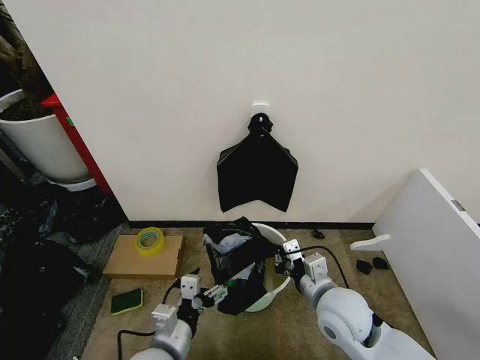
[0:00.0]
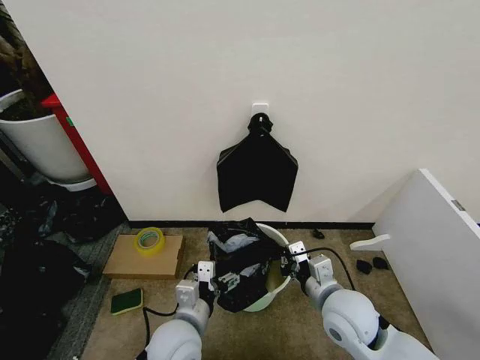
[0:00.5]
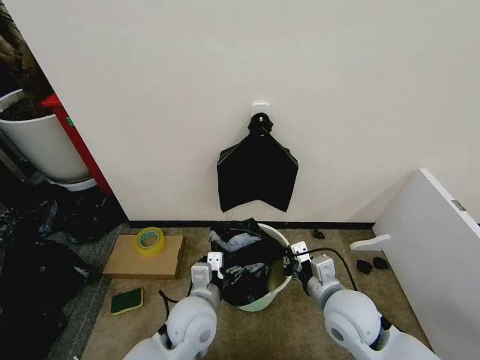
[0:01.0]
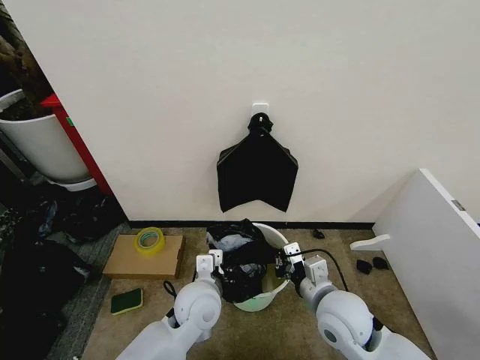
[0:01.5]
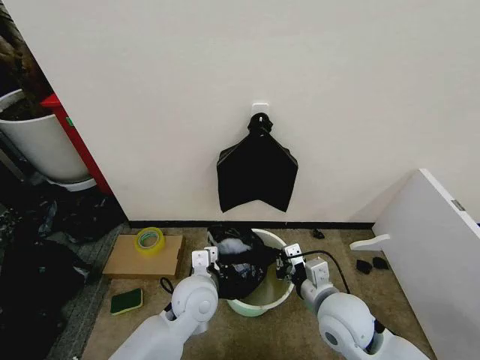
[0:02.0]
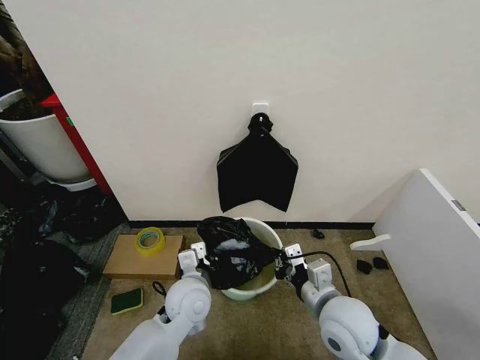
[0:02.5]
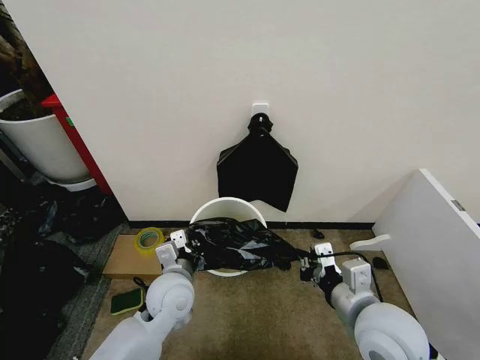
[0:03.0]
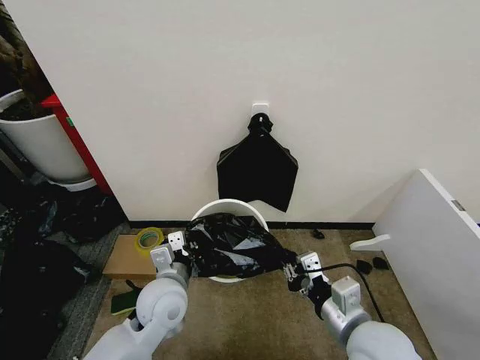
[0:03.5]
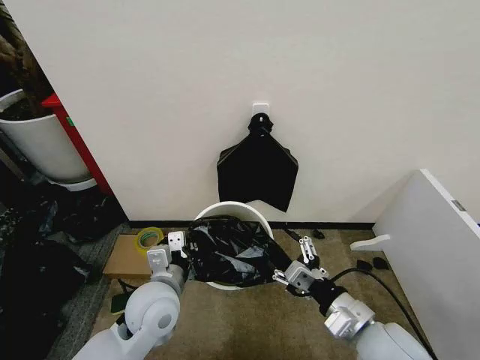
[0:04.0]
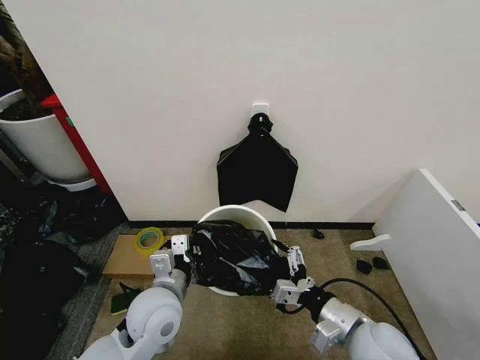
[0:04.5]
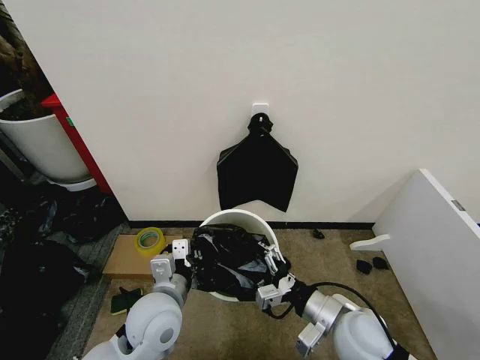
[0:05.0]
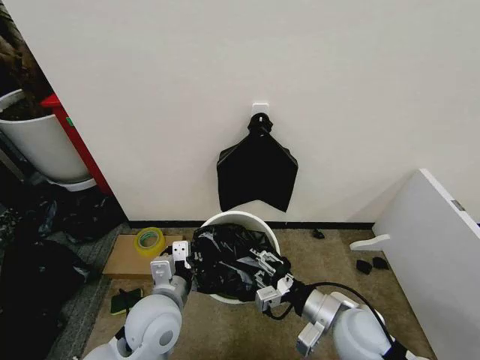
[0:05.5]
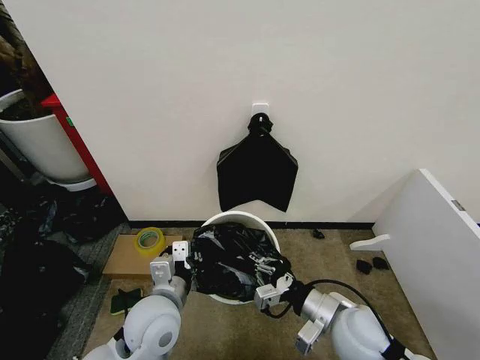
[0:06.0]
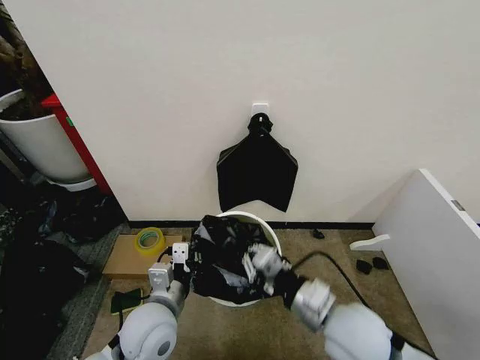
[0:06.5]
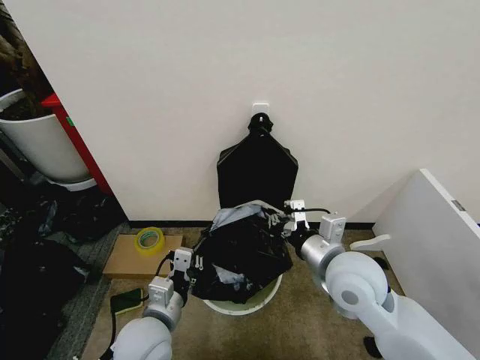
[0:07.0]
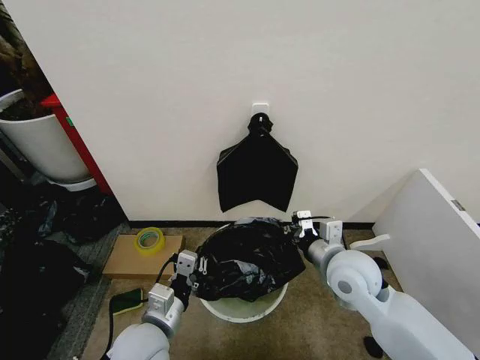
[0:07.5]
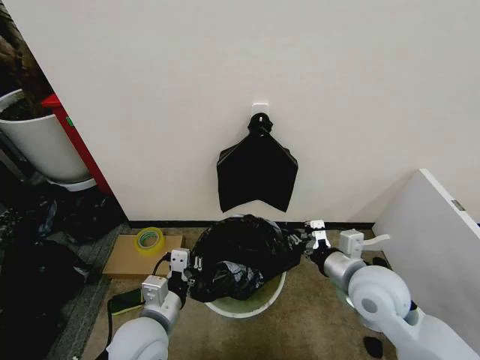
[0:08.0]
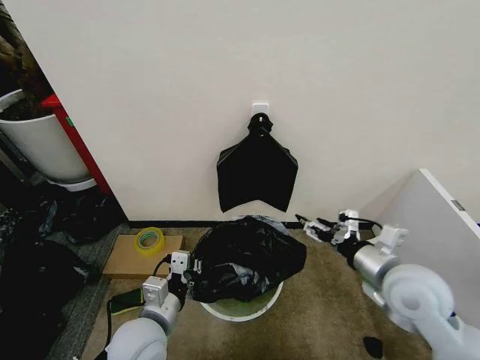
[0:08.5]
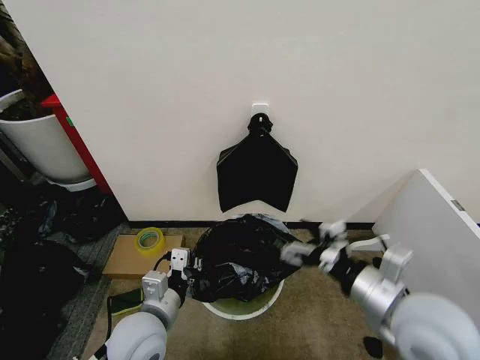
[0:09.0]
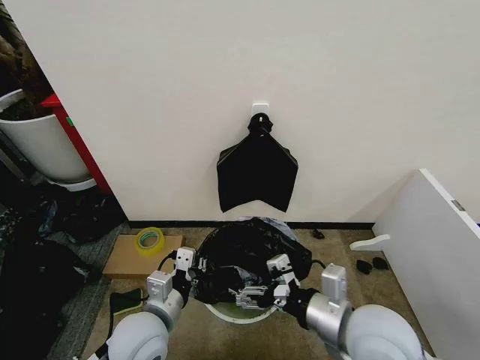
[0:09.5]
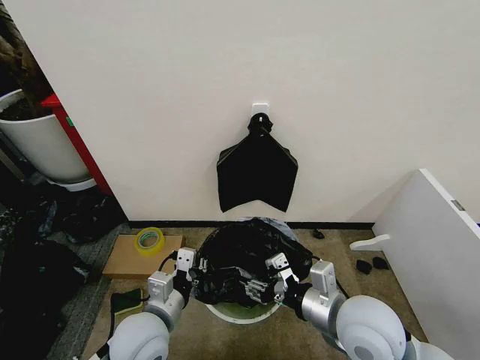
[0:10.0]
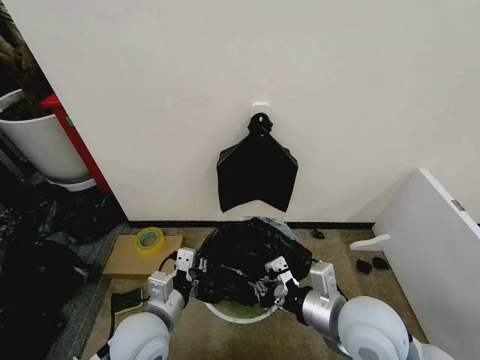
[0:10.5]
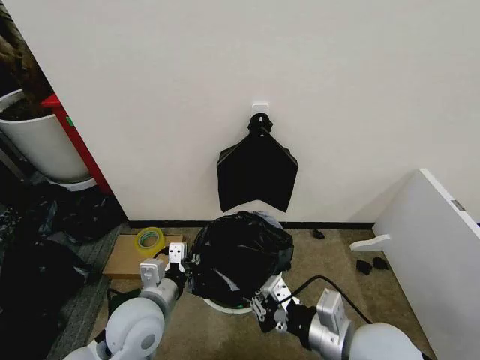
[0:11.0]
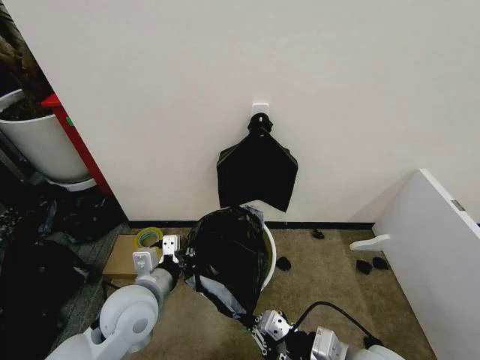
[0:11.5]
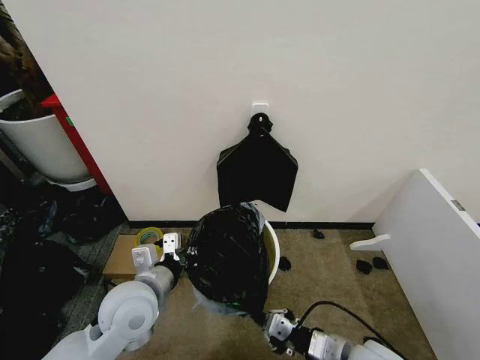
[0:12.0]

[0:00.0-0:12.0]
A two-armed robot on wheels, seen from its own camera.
Task of the whole recording: Place the garbage bag over the trash bin.
0:00.0 to 0:02.0: The left gripper moves forward and to the right, about 15 cm, and closes its fingers.
0:02.0 to 0:04.0: The right gripper is displaced backward by some 5 cm, and opens its fingers. The left gripper shifts roughly 5 cm to the left.
0:04.0 to 0:06.0: The right gripper shifts by some 5 cm, and closes its fingers.
0:06.0 to 0:08.0: The right gripper moves upward and forward, some 10 cm.
0:08.0 to 0:10.0: The right gripper moves backward, about 5 cm, and opens and closes again.
0:10.0 to 0:12.0: The right gripper is displaced downward and backward by approximately 10 cm, and closes up. The left gripper ends up approximately 5 cm from where it was.

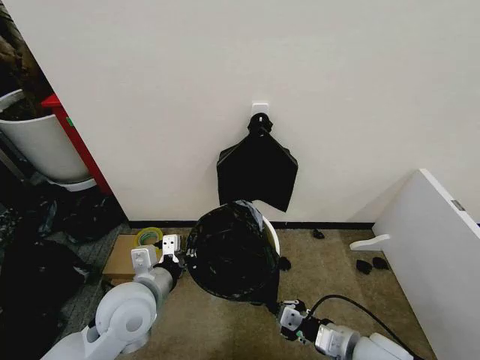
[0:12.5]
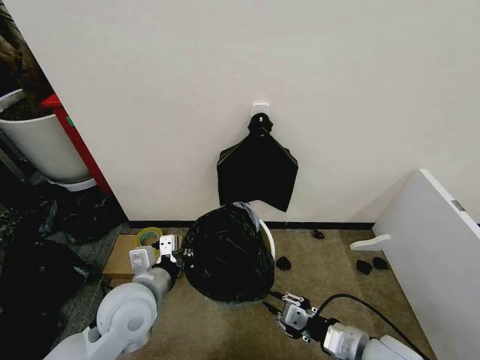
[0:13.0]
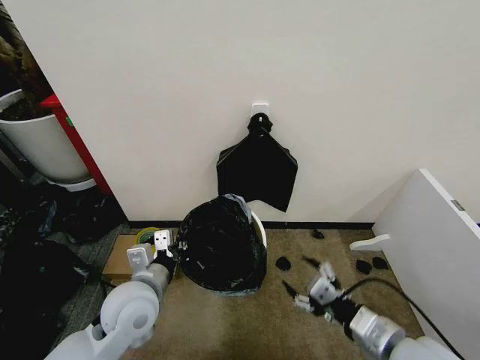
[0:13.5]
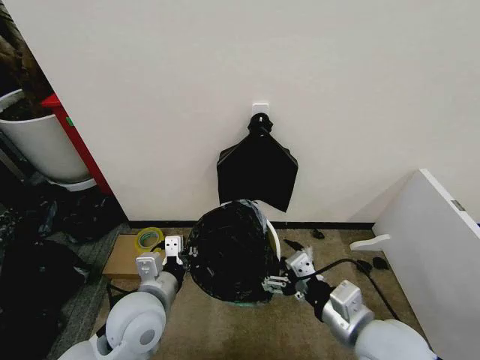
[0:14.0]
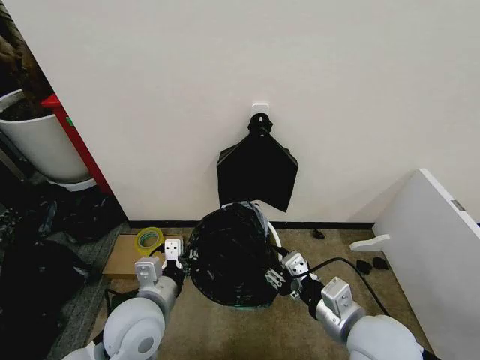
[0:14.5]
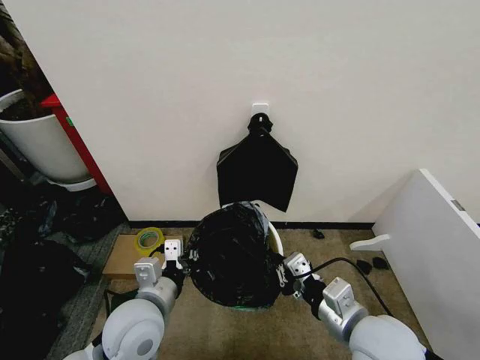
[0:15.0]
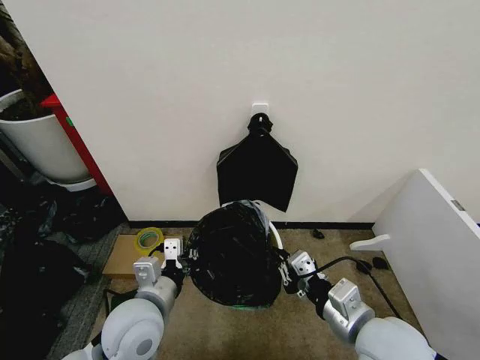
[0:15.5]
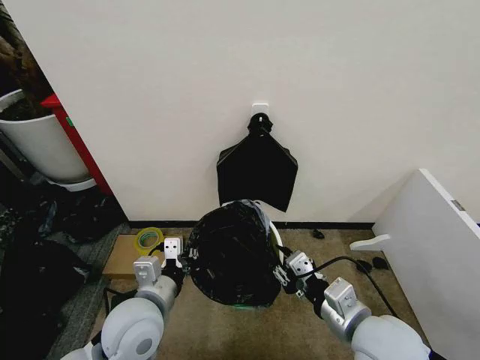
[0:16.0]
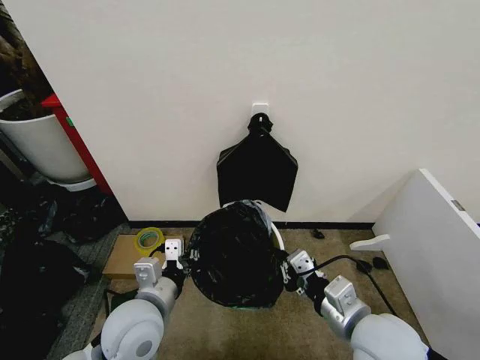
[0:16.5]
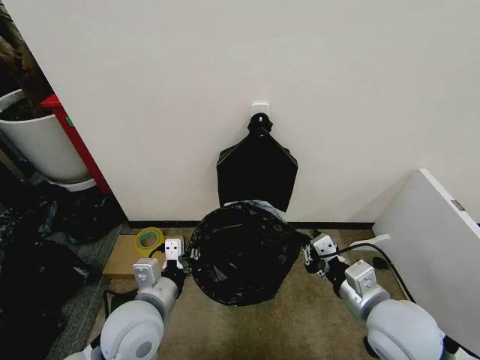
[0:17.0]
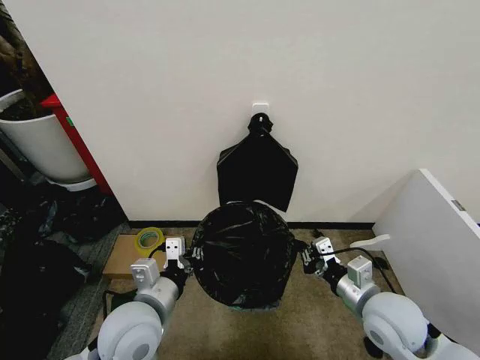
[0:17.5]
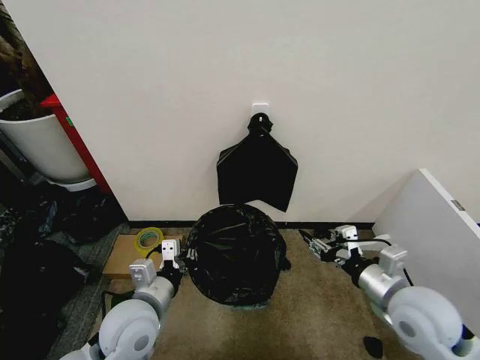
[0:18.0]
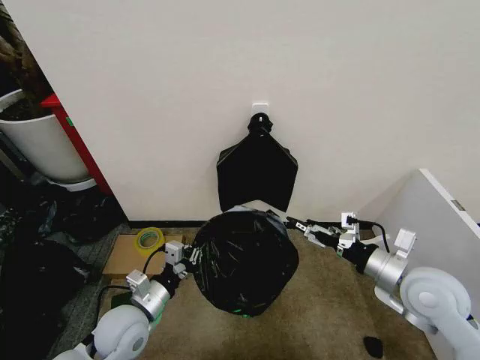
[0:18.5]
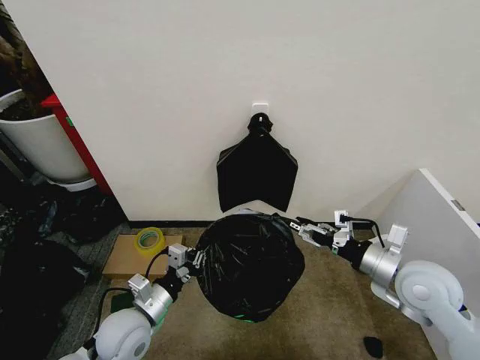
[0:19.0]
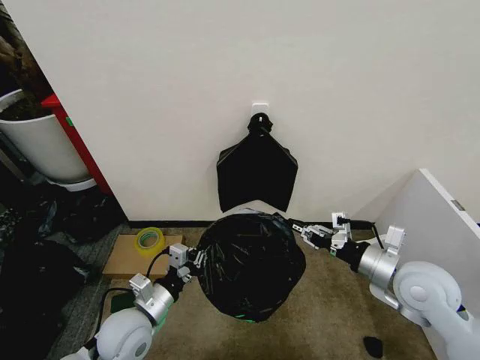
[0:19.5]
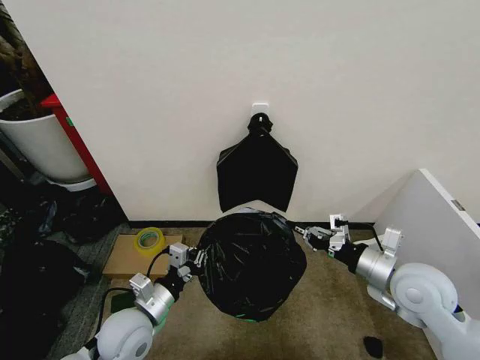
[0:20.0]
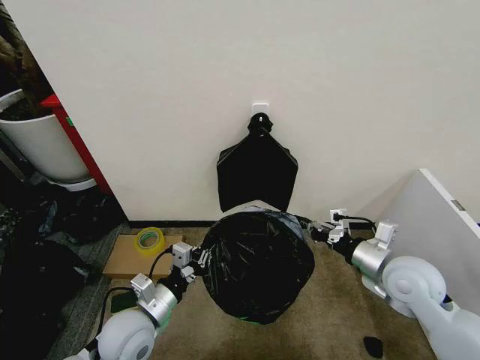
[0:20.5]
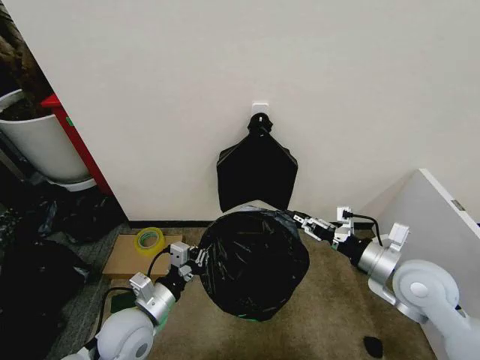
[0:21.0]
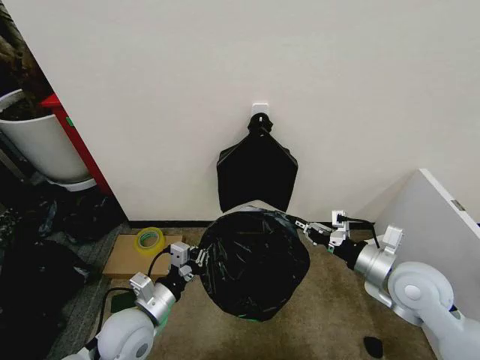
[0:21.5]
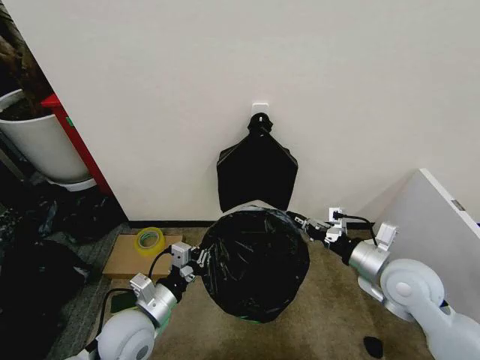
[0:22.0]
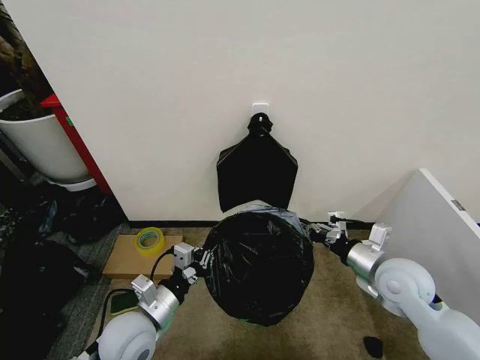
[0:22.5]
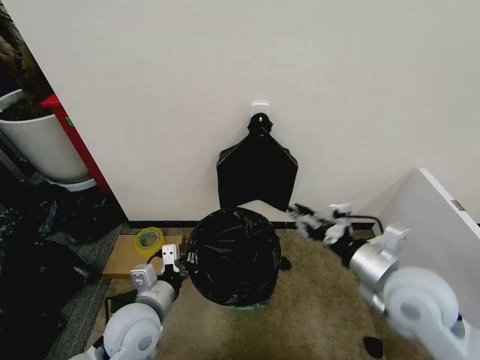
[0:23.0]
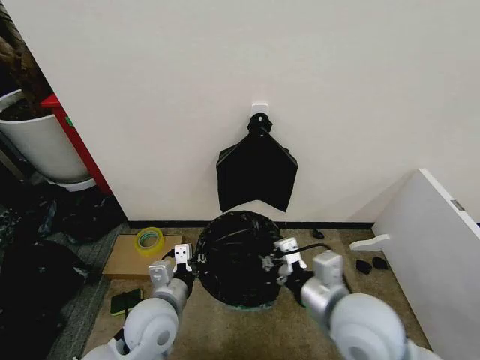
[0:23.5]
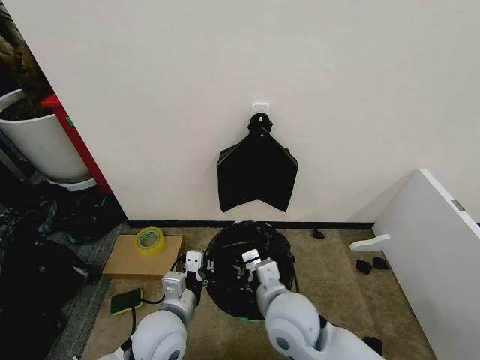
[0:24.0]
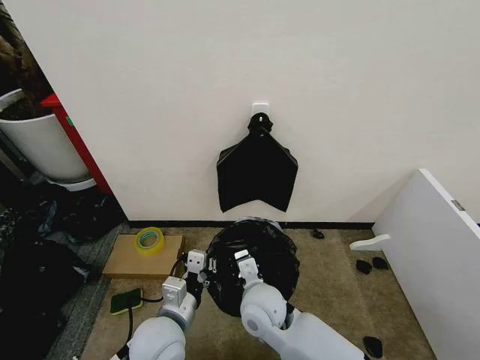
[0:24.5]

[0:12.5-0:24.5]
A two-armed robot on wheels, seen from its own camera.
Task of the whole recording: Place the garbage bag over the trash bin.
0:12.5 to 0:14.5: The right gripper travels upward by approximately 10 cm, and opens its fingers.
0:14.5 to 0:16.5: The right gripper closes up.
0:16.5 to 0:18.5: The left gripper travels downward and to the left by some 10 cm; the right gripper goes some 15 cm to the right and forward, and opens its fingers.
0:18.5 to 0:20.5: The right gripper closes.
0:20.5 to 0:22.5: The right gripper opens, then closes once more.
0:22.5 to 0:24.5: The left gripper is displaced to the right by some 5 cm; the right gripper shifts about 30 cm to the left, and opens, then closes once more.

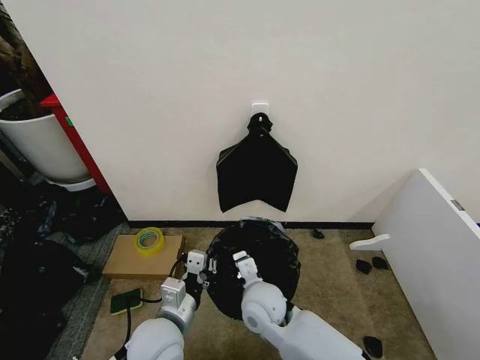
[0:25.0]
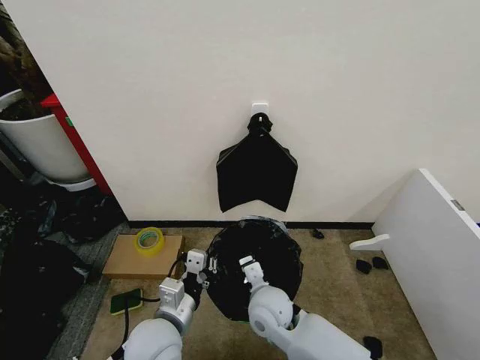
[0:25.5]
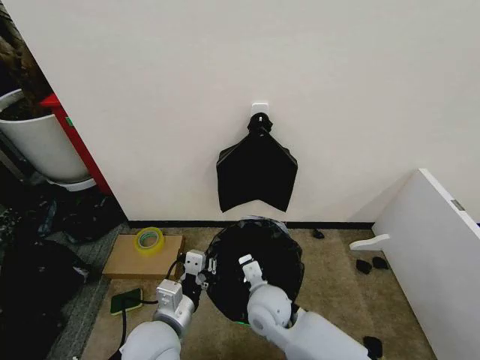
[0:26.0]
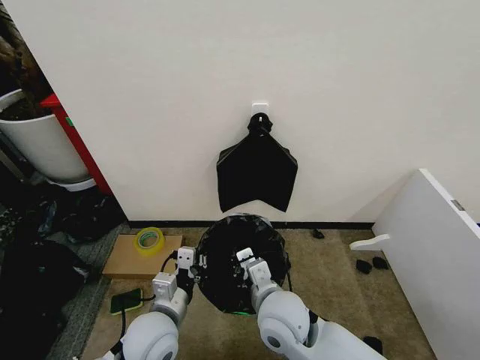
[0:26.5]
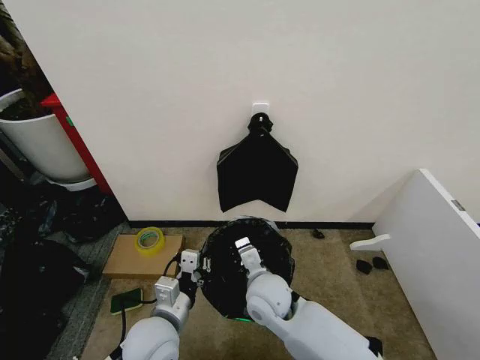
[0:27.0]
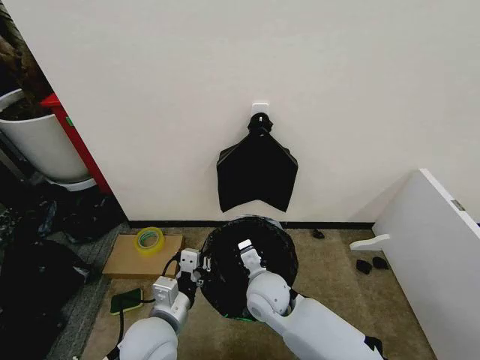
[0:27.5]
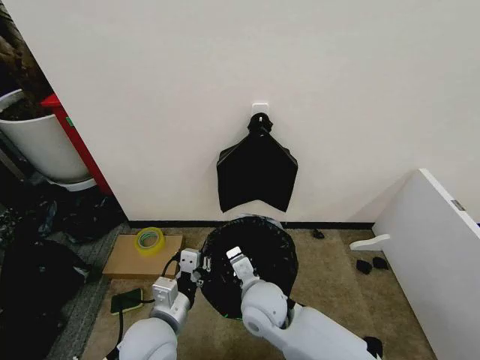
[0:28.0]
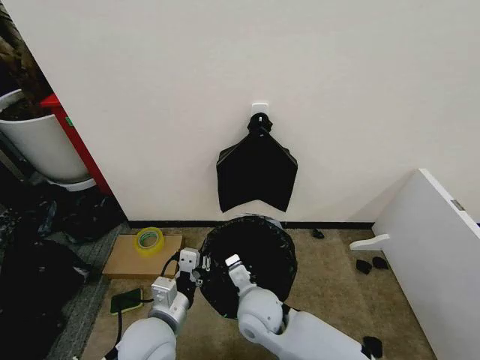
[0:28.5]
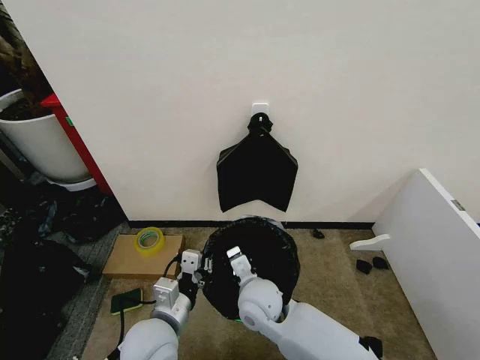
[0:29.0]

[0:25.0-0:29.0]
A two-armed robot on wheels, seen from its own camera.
Task of the whole recording: Place the garbage bag over the trash bin.
0:27.0 to 0:29.0: There are only small adjustments of the grippers.
